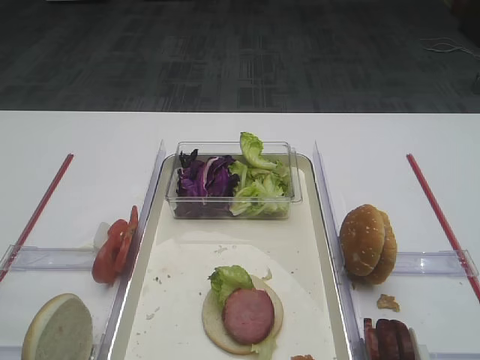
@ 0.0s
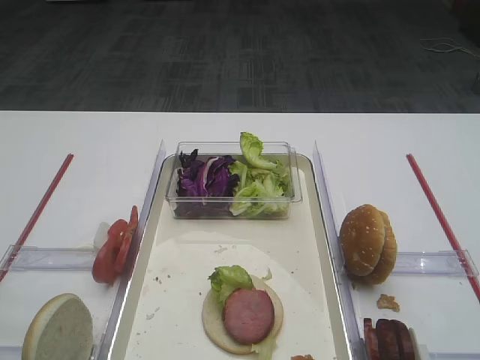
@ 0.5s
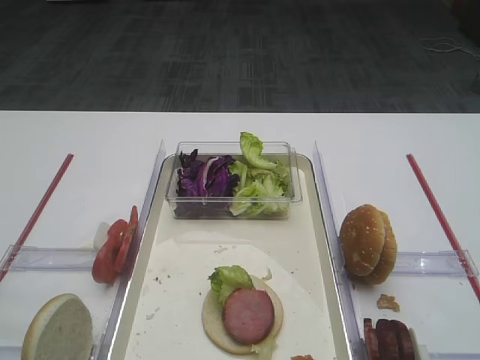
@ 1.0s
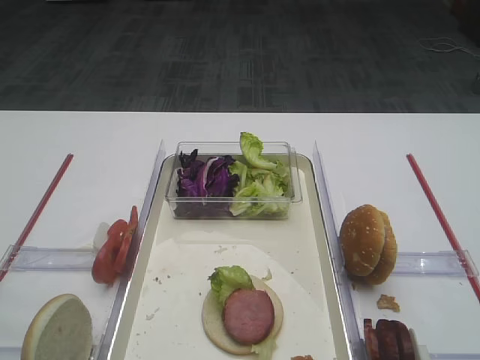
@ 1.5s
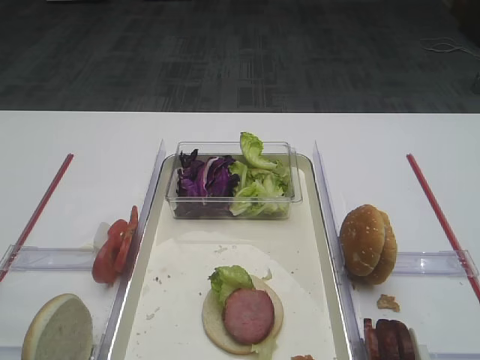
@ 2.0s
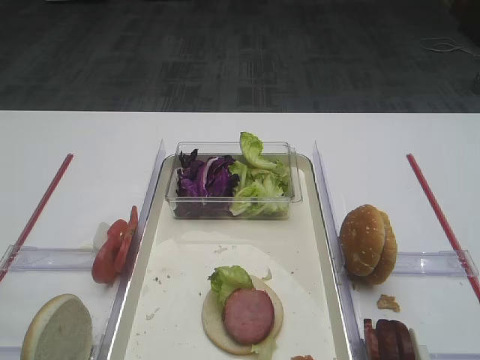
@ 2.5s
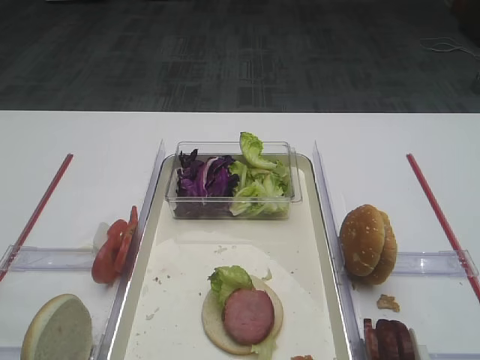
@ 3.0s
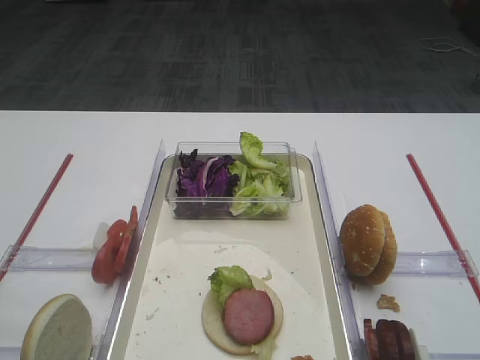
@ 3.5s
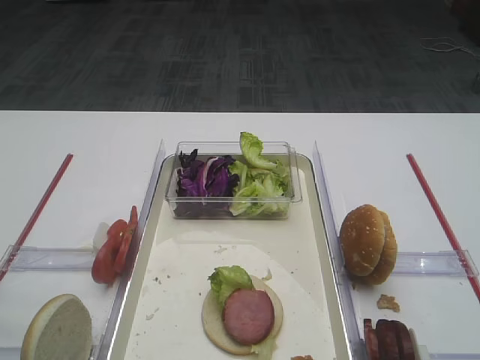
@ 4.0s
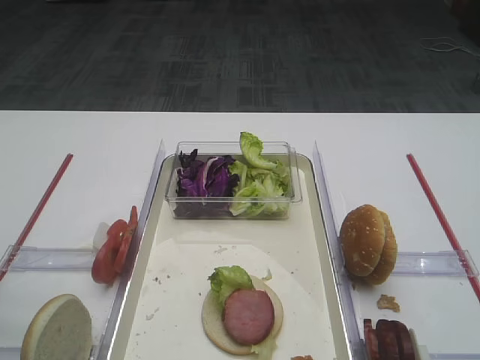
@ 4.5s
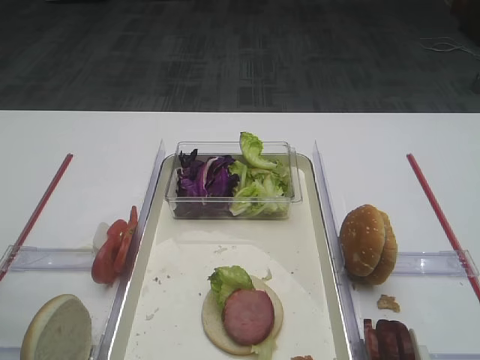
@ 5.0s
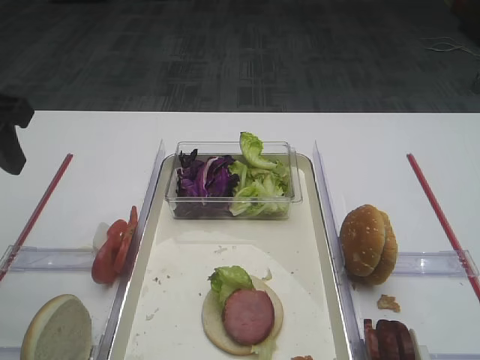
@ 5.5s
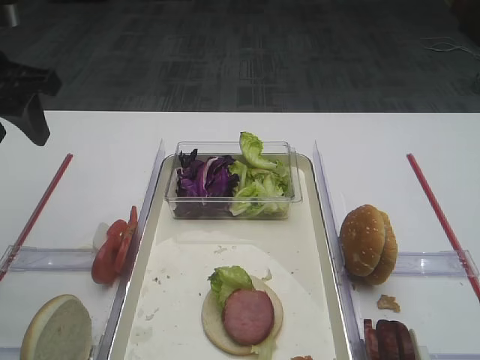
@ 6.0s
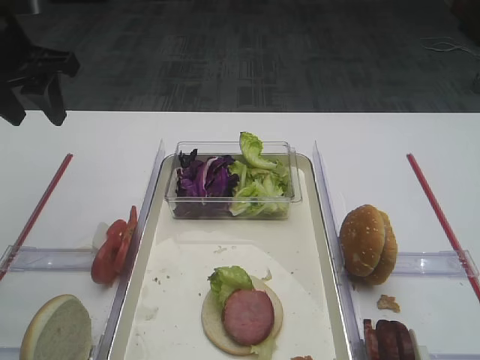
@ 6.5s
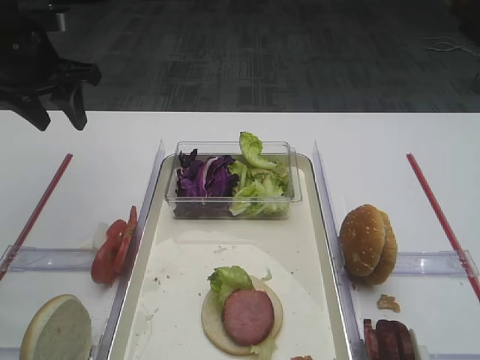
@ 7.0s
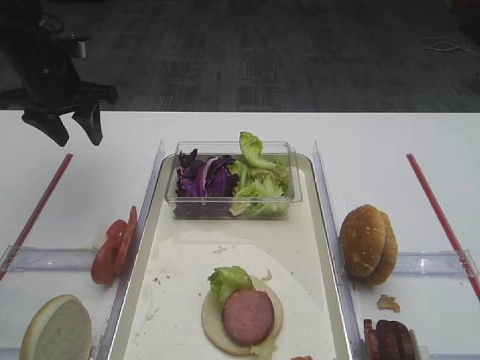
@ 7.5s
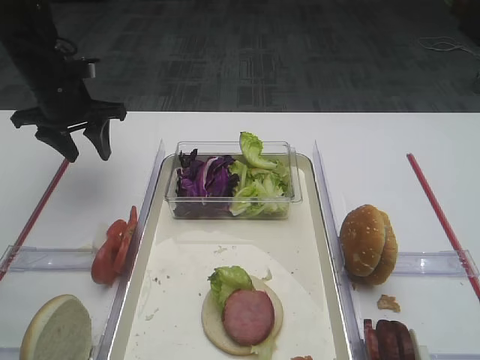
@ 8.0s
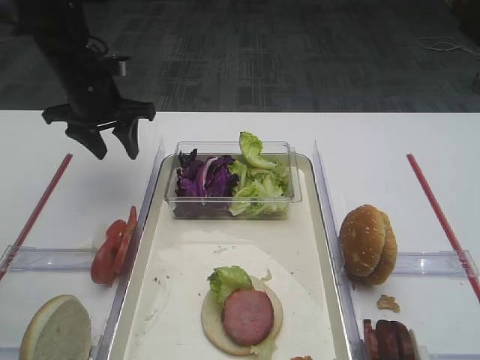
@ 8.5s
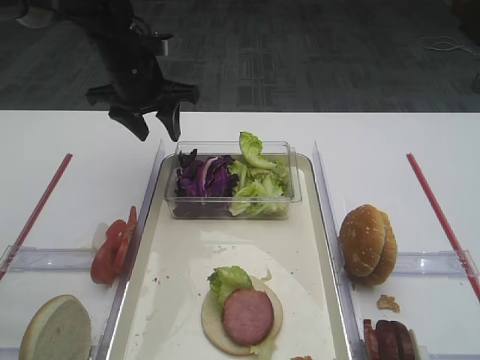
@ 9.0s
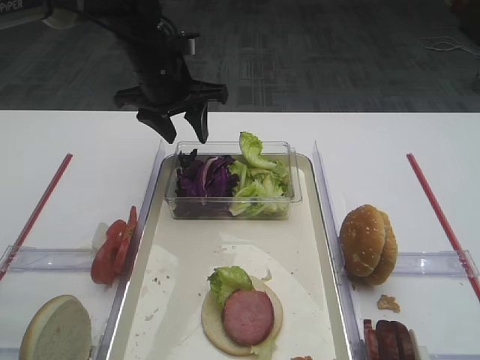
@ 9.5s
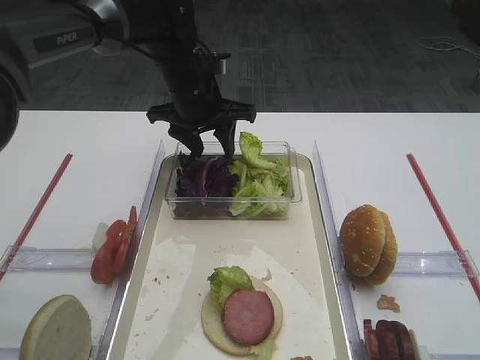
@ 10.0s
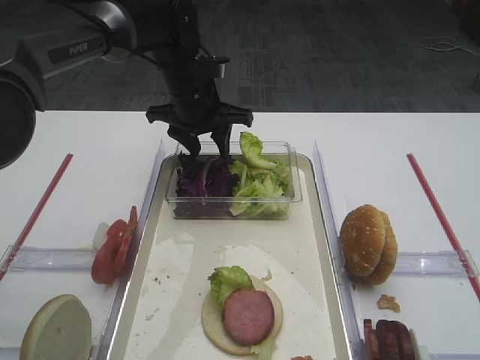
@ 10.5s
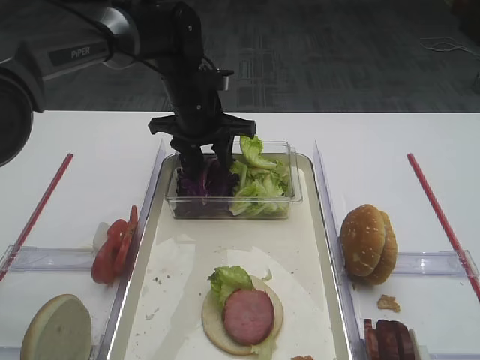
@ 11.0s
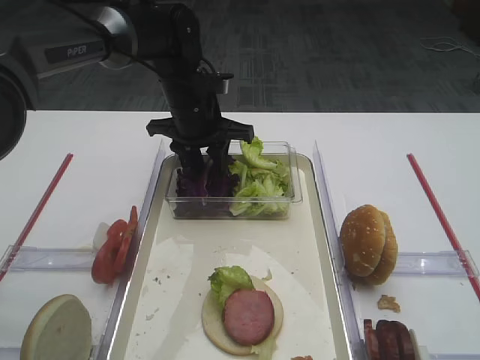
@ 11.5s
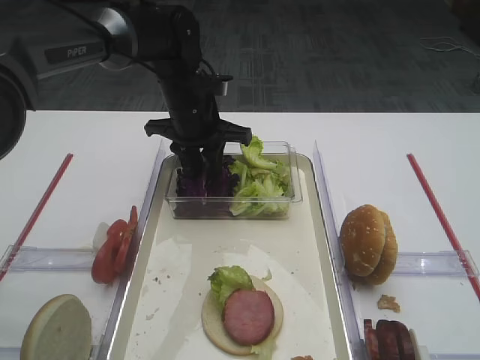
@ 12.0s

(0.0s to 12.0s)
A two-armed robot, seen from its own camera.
4.0s - 6.0s: The left gripper goes roughly 25 cm forward.
6.0s - 8.0s: The left gripper shifts approximately 20 cm forward and downward.
8.0s - 10.0s: The left gripper moves to the right, roughly 20 cm.
10.0s - 12.0s: The left gripper closes its fingers.

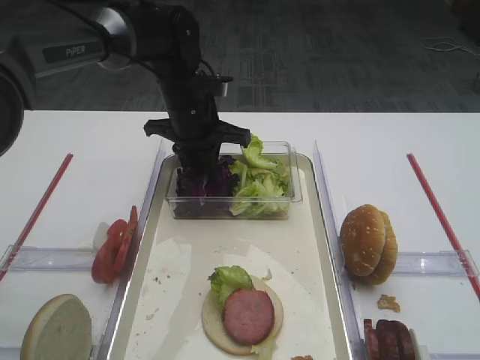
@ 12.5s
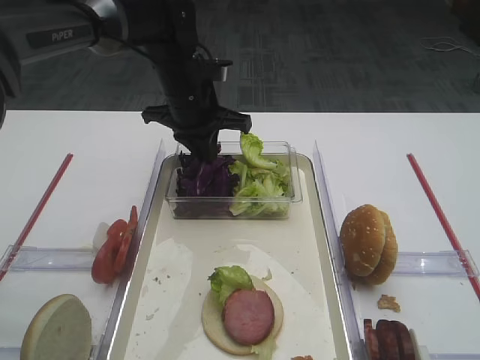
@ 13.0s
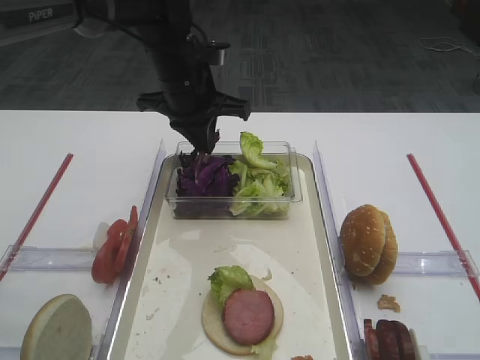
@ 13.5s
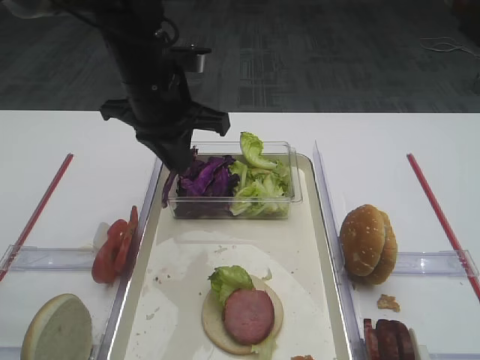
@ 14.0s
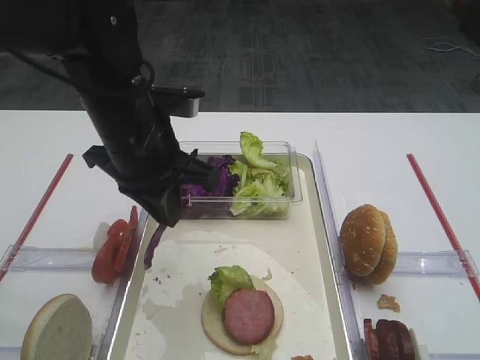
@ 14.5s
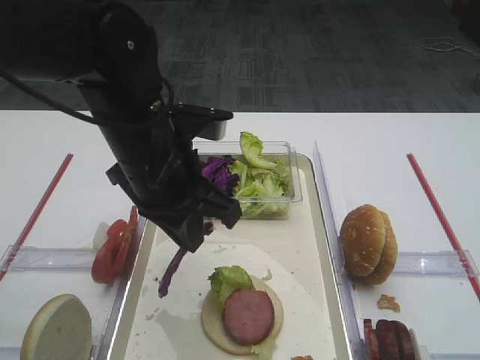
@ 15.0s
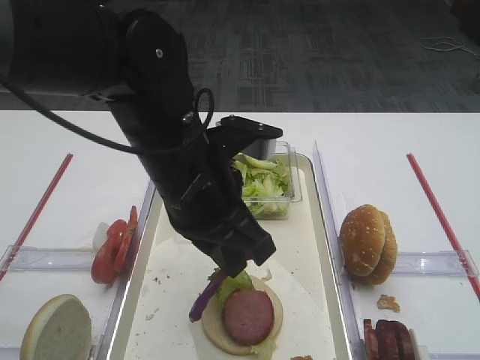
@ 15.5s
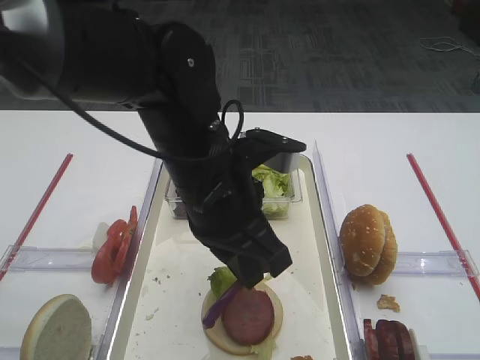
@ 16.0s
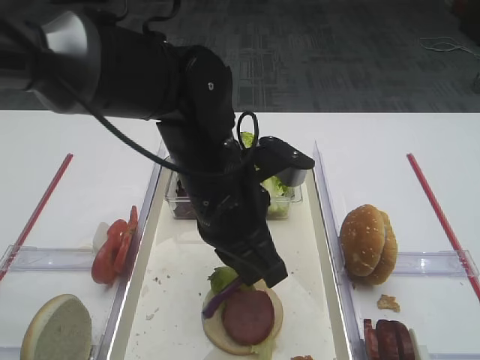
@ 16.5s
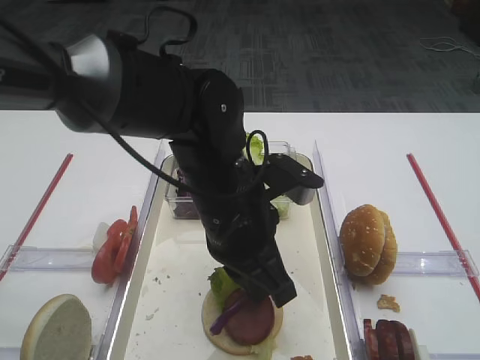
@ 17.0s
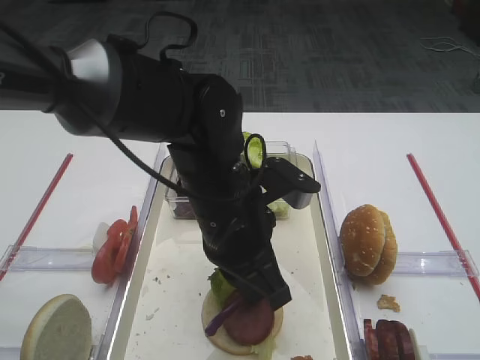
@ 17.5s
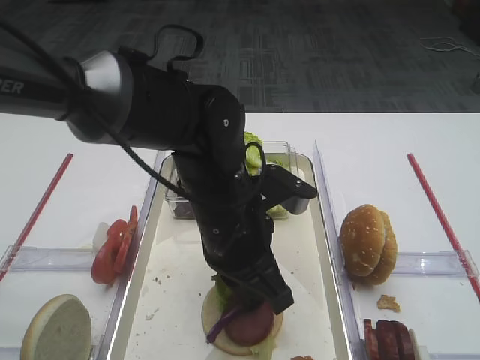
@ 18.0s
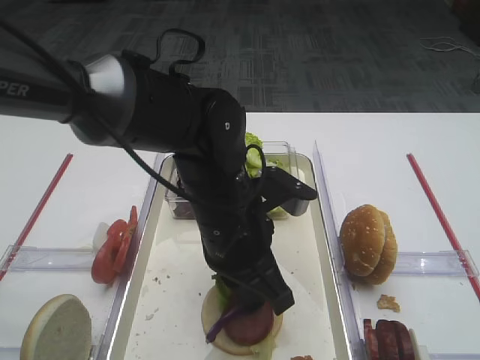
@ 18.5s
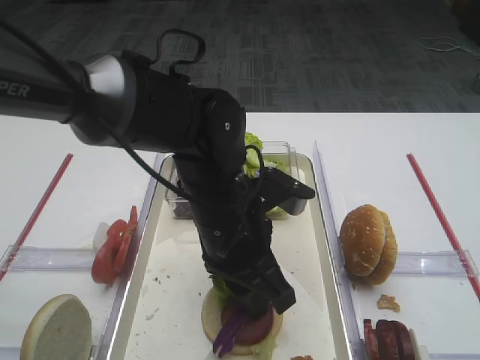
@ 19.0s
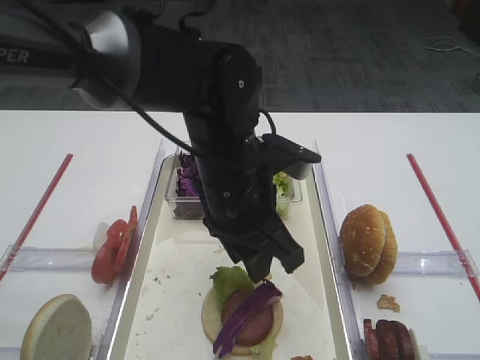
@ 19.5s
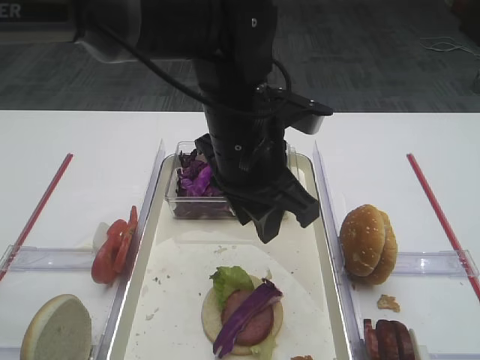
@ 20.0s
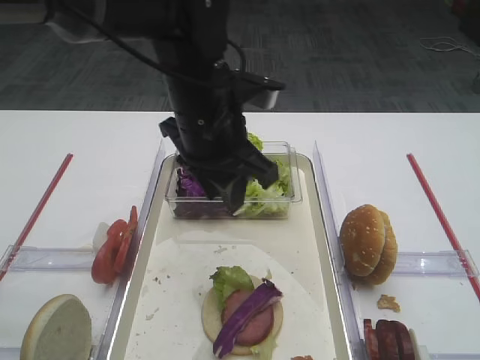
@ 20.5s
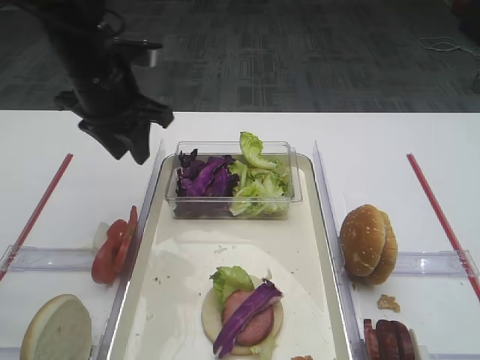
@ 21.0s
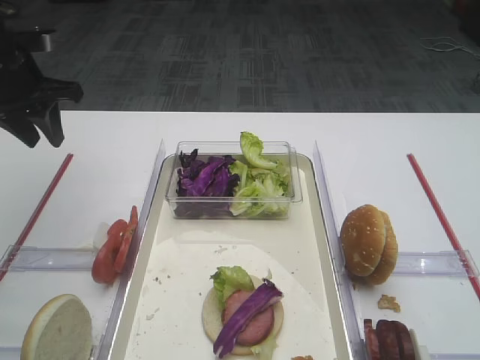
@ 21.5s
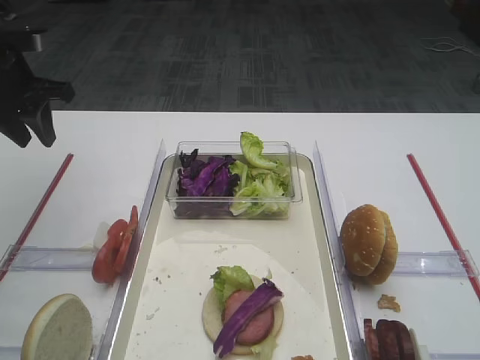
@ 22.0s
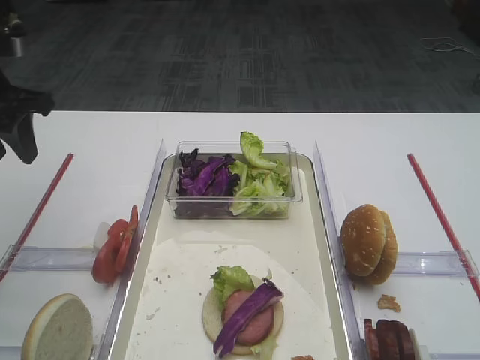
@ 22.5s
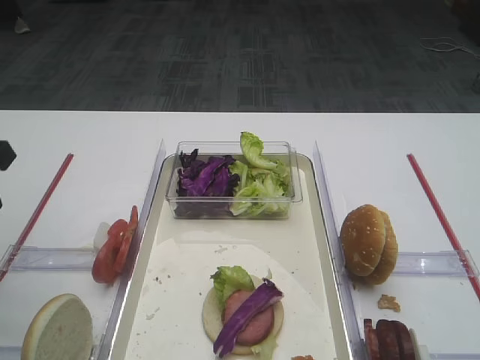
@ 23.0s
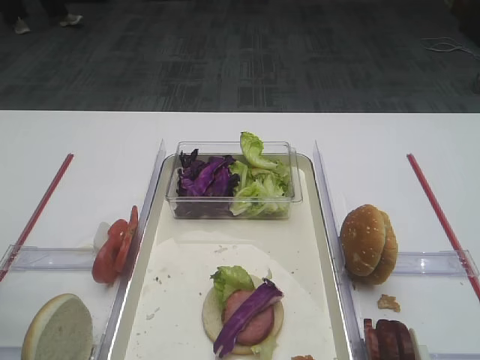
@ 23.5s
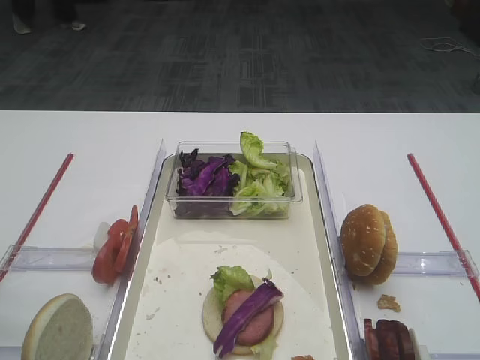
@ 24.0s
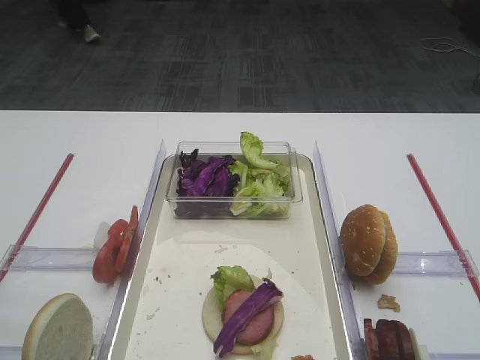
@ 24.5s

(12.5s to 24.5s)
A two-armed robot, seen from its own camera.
Step, 14.0s - 19.5s: Place the purple cabbage on the cutlet with the left gripper.
12.5s - 14.5s: The left gripper moves backward, about 15 cm.
14.5s - 16.5s: The left gripper goes some 10 cm to the right.
16.5s - 18.5s: There are only small adjustments of the grippers.
18.5s - 20.5s: The left gripper heads upward and forward, covering some 10 cm, and opens.
20.5s - 22.5s: The left gripper travels to the left by some 25 cm.
22.5s - 24.5s: The left gripper is displaced backward by some 25 cm.

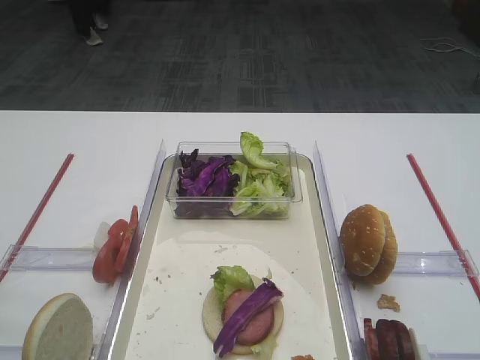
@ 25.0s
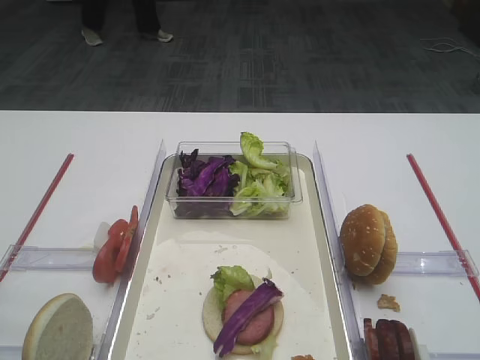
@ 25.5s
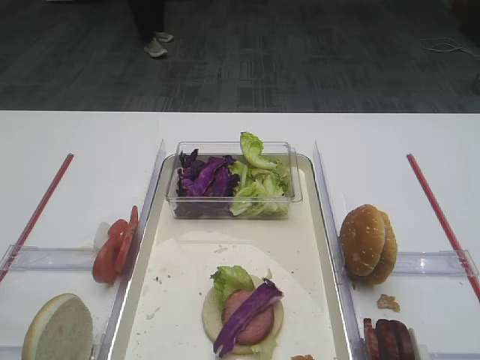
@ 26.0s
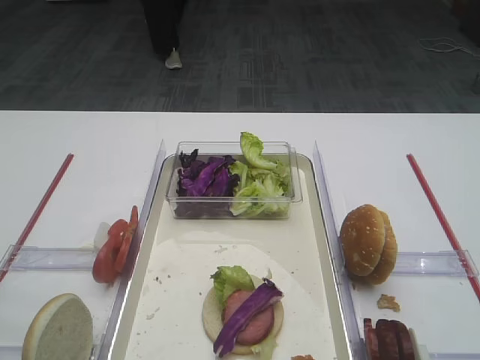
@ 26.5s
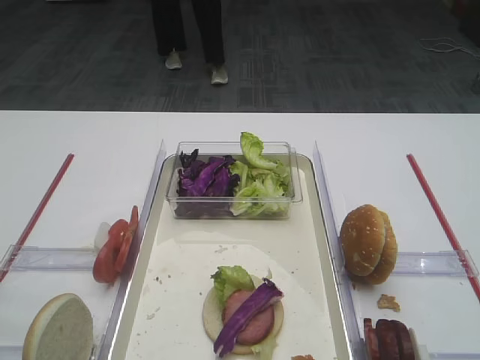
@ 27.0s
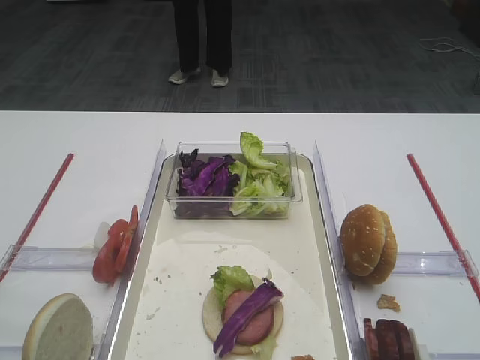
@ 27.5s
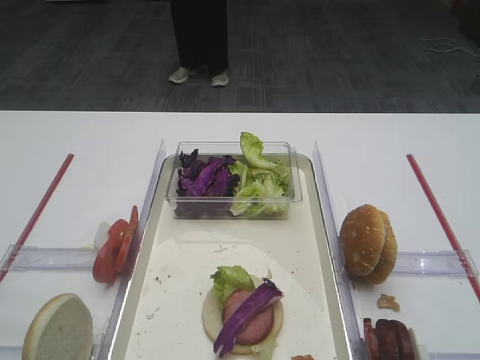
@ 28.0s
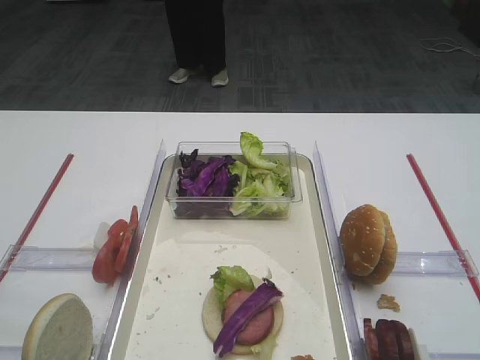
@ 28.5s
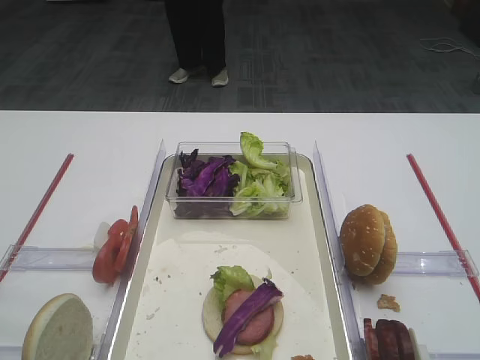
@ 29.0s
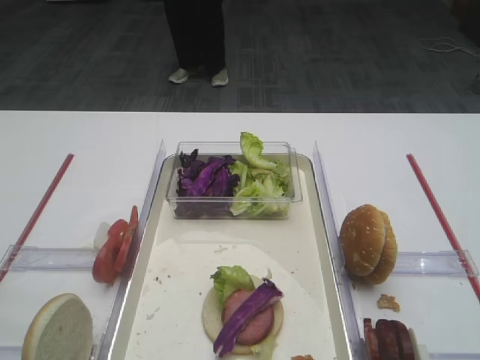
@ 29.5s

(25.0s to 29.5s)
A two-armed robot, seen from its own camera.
25.0s - 27.0s: The left gripper moves backward, roughly 10 cm.
27.0s - 29.5s: Neither gripper changes place.
